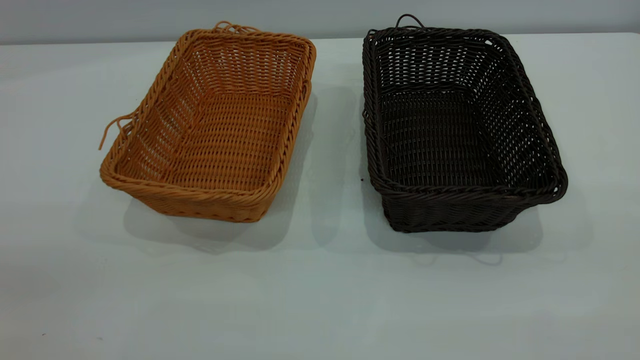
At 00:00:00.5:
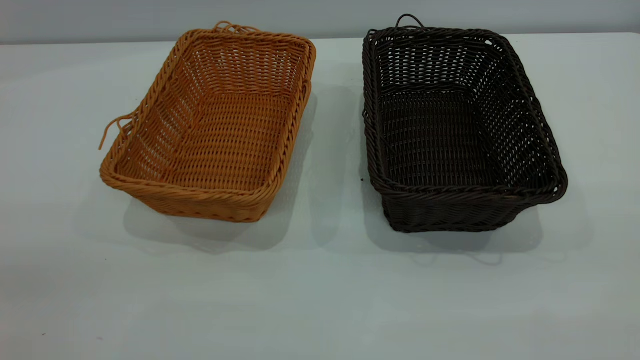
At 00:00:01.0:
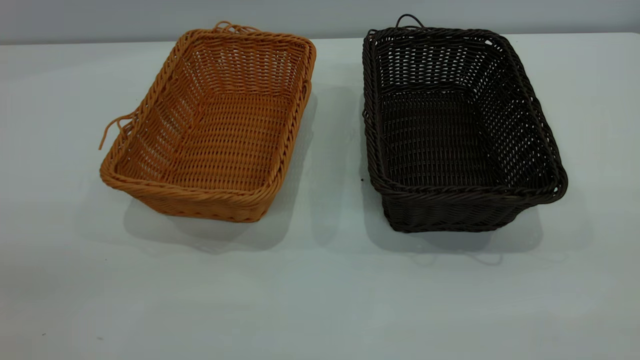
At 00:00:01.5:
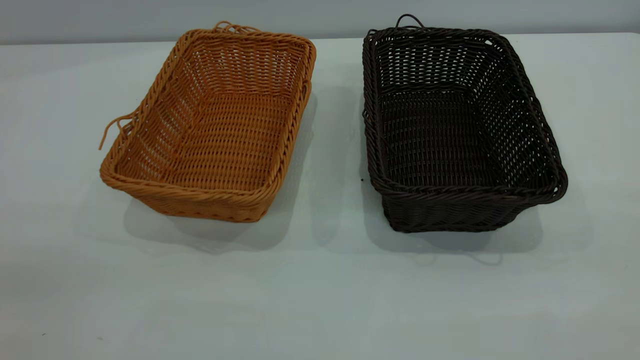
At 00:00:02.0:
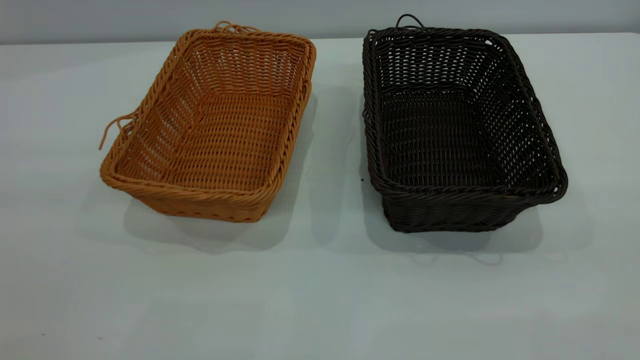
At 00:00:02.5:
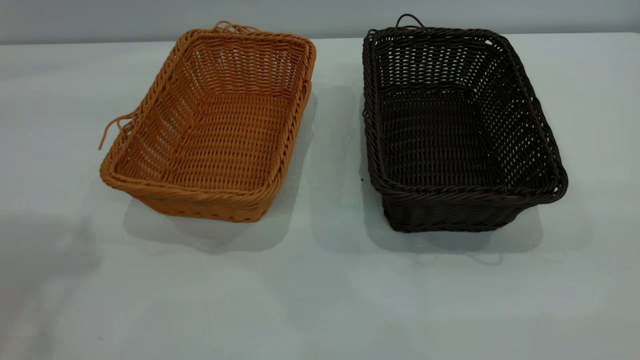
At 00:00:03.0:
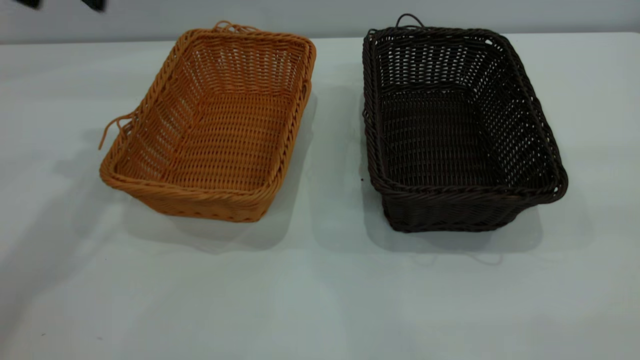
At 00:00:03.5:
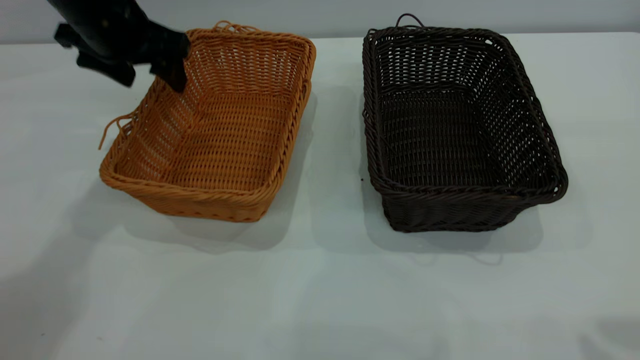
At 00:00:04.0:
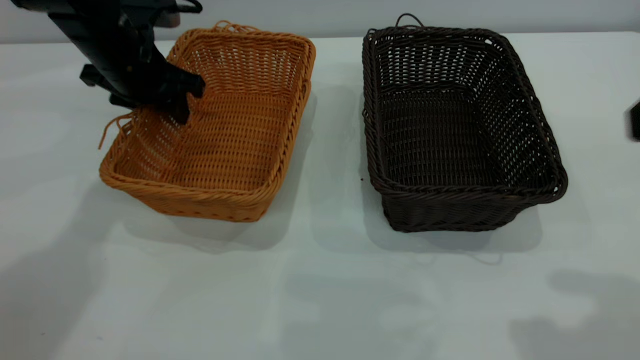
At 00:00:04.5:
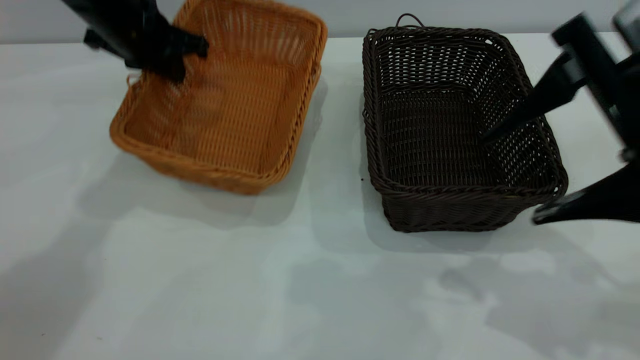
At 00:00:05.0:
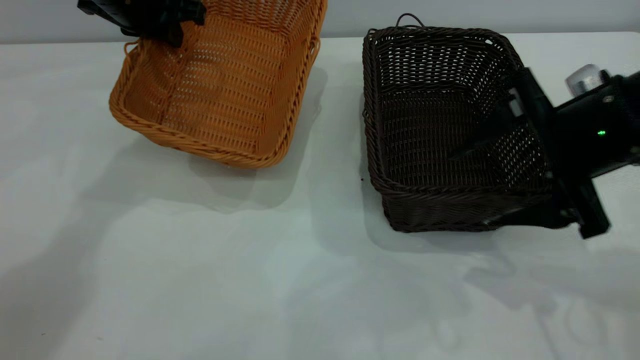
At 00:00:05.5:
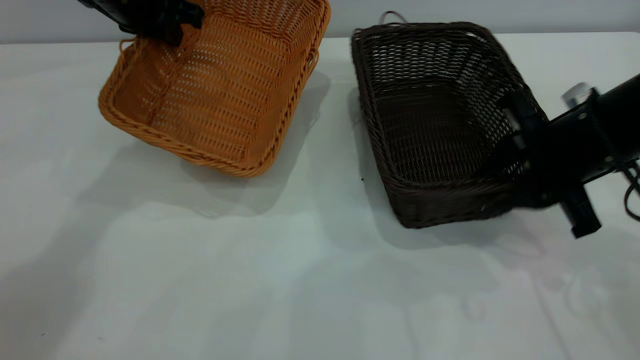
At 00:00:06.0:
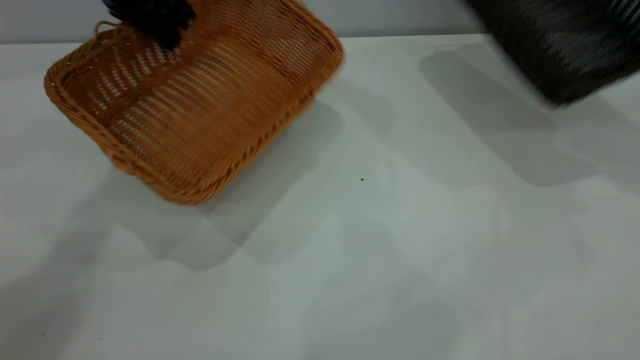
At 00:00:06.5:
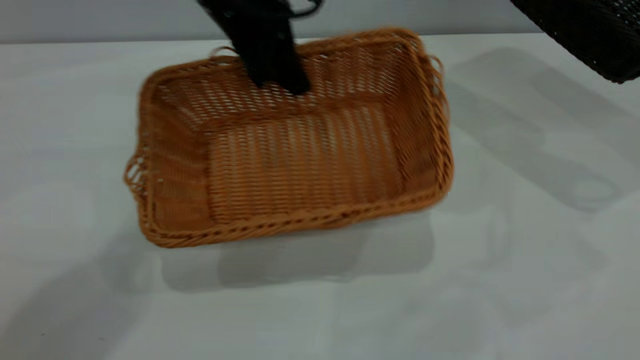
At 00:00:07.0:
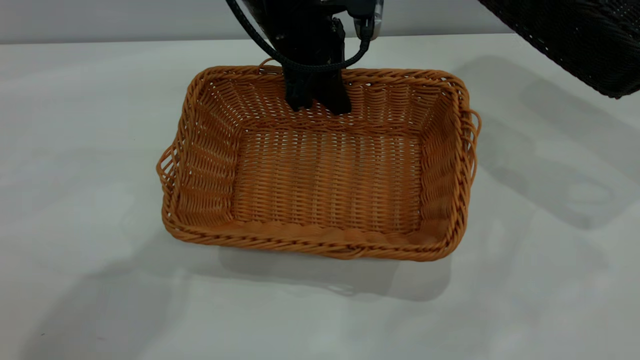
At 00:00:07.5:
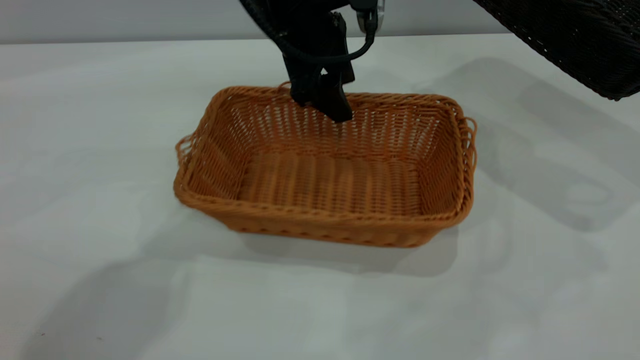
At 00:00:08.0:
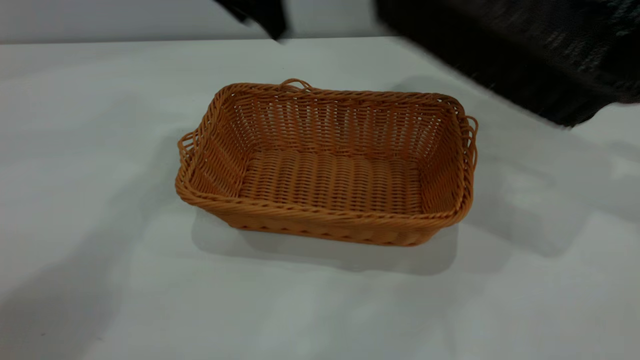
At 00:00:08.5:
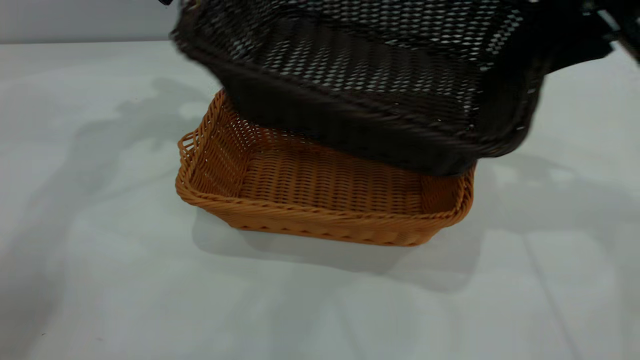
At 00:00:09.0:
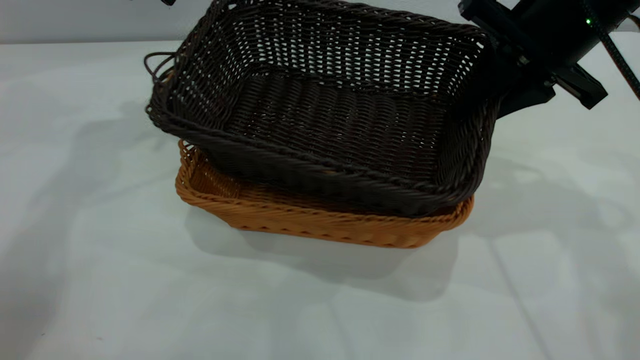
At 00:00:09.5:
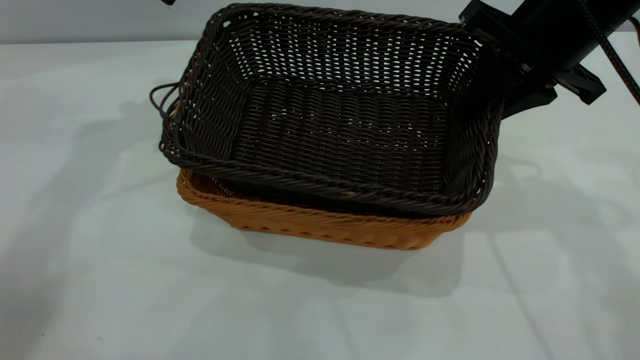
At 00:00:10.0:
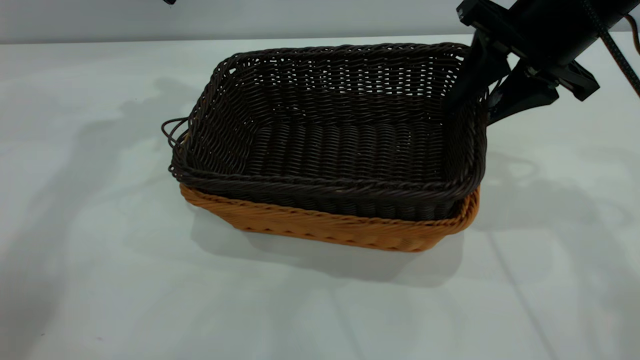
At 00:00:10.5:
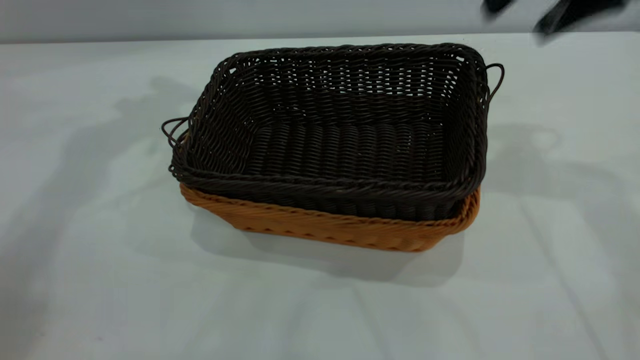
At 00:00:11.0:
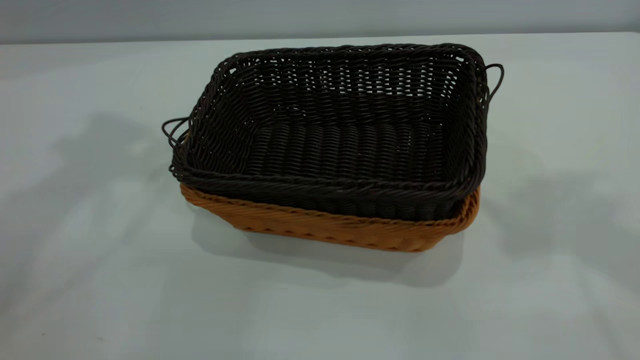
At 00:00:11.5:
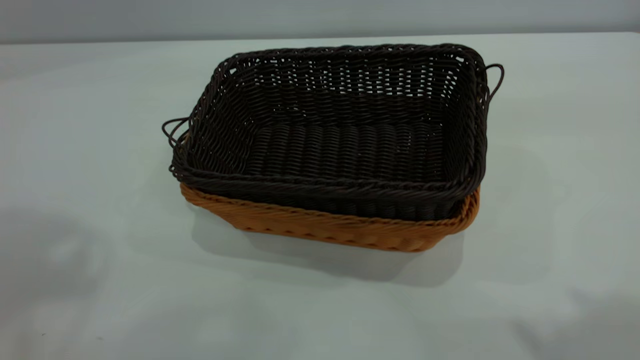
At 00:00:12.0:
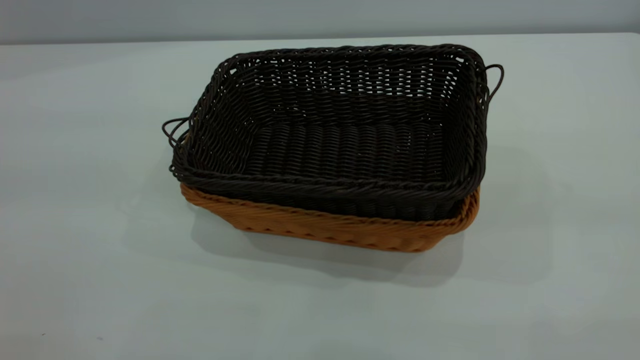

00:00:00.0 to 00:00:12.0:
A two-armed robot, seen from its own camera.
Task of the whole recording: the left gripper grasp the brown basket and place it in the center of the table, the right gripper grasp the black basket and place it inside the brown one.
Step, 00:00:00.0 to 00:00:05.5: Pick up the light basket with the right gripper.
Step, 00:00:06.0 to 00:00:07.5: Place the light-colored basket in the center.
Step, 00:00:08.0 to 00:00:10.0: Place the dark basket on top of the light basket.
00:00:02.0 to 00:00:04.0: The left gripper is displaced forward and downward by about 50 cm, and closes up.
00:00:04.0 to 00:00:06.0: The left gripper goes approximately 10 cm upward, while the right gripper travels forward, to the right and downward by roughly 25 cm, and closes its fingers.
00:00:06.0 to 00:00:08.0: The right gripper shifts approximately 5 cm upward. The left gripper moves about 15 cm to the right and comes back, and opens its fingers.
00:00:08.0 to 00:00:10.0: The right gripper shifts roughly 15 cm to the left, and opens, while the left gripper goes approximately 10 cm to the left.
00:00:10.0 to 00:00:12.0: The left gripper shifts approximately 40 cm backward, while the right gripper goes roughly 35 cm backward and upward, and opens its fingers.

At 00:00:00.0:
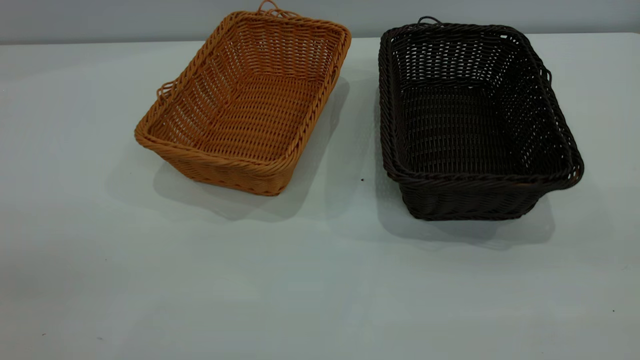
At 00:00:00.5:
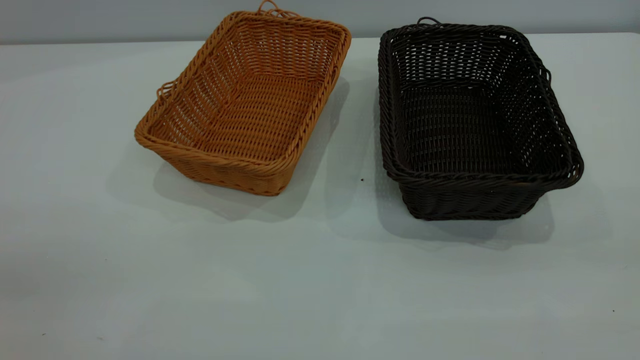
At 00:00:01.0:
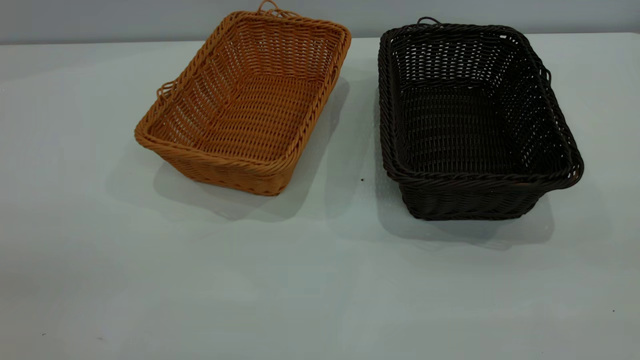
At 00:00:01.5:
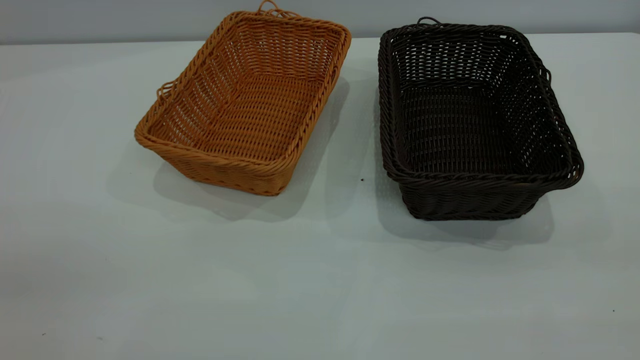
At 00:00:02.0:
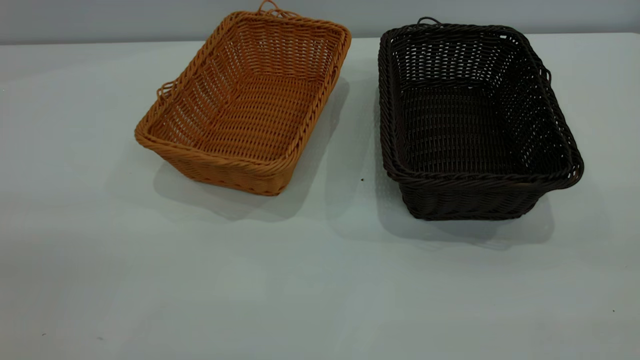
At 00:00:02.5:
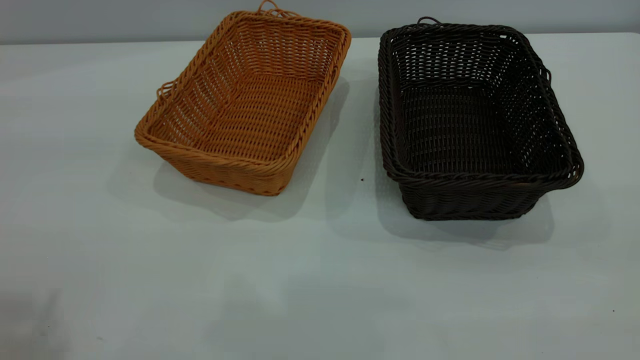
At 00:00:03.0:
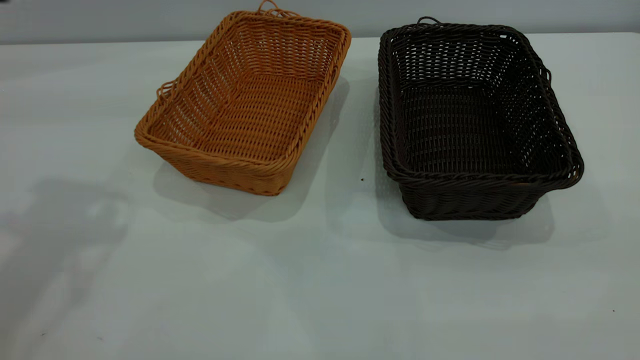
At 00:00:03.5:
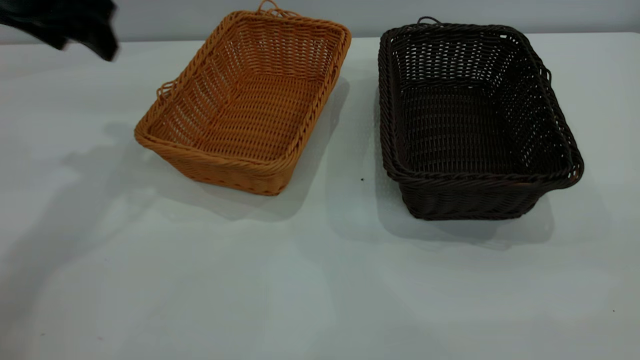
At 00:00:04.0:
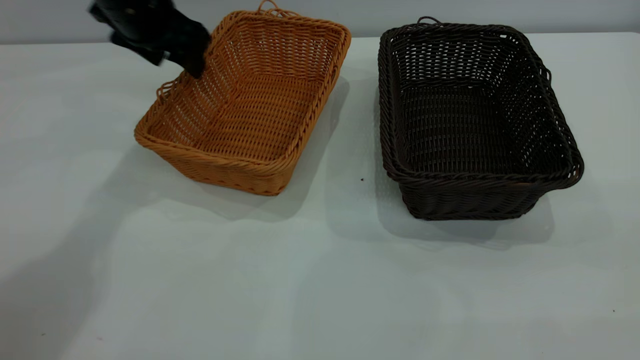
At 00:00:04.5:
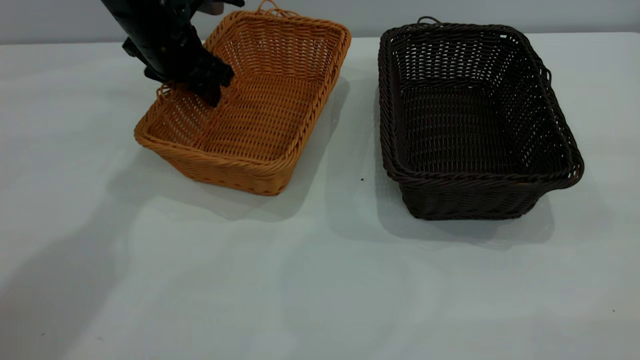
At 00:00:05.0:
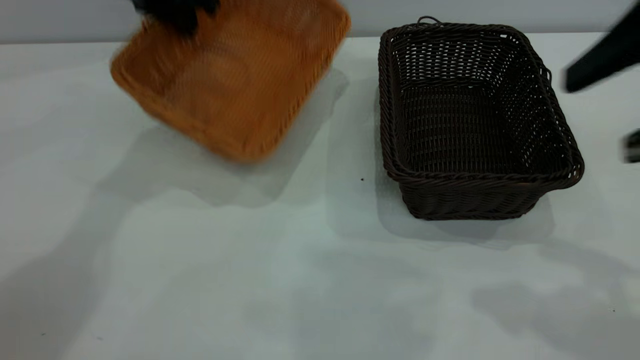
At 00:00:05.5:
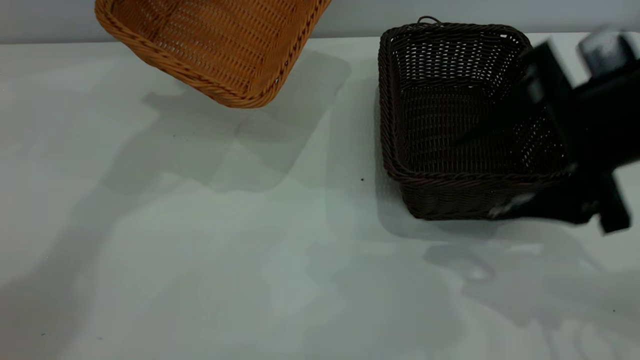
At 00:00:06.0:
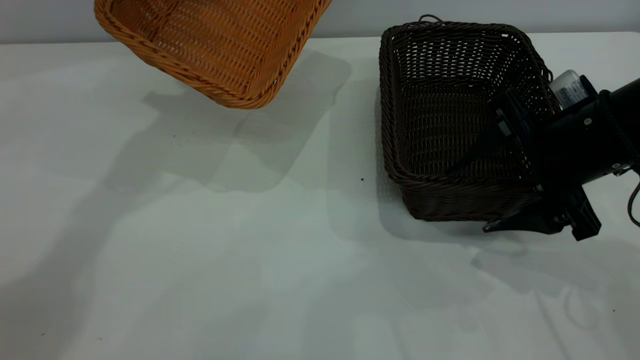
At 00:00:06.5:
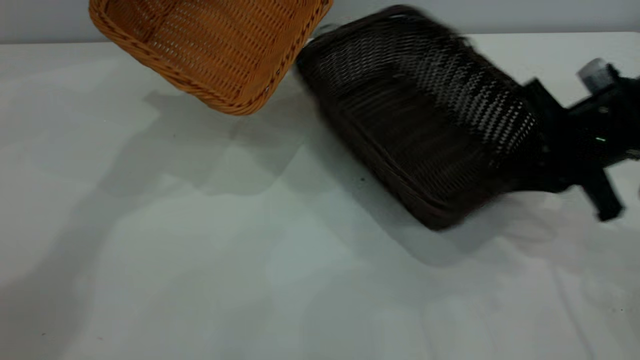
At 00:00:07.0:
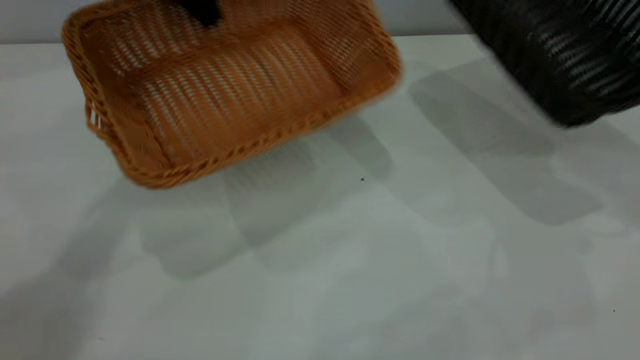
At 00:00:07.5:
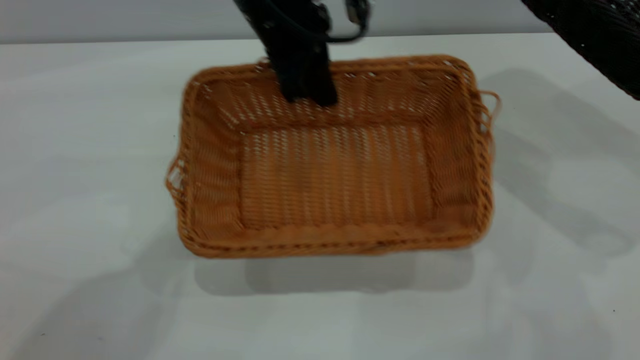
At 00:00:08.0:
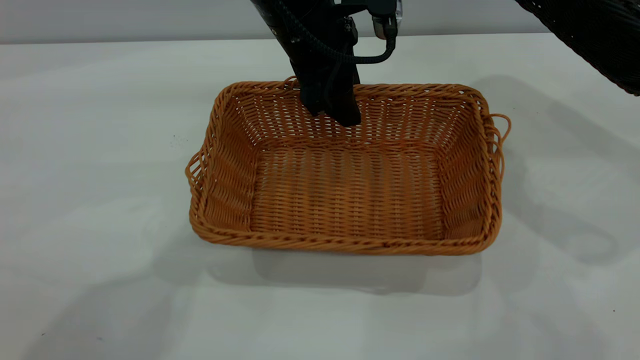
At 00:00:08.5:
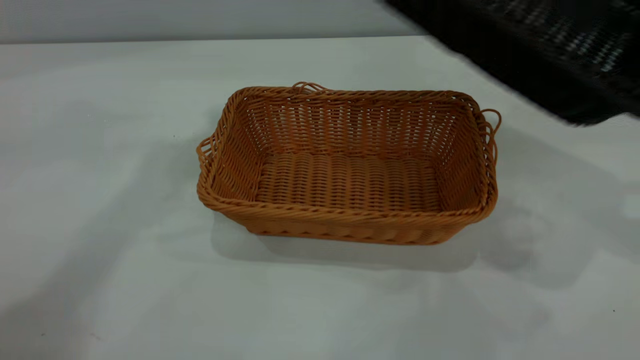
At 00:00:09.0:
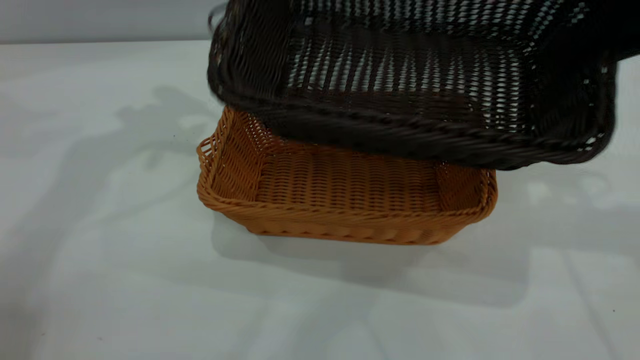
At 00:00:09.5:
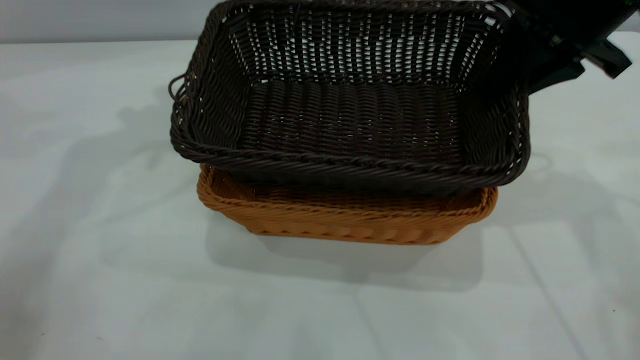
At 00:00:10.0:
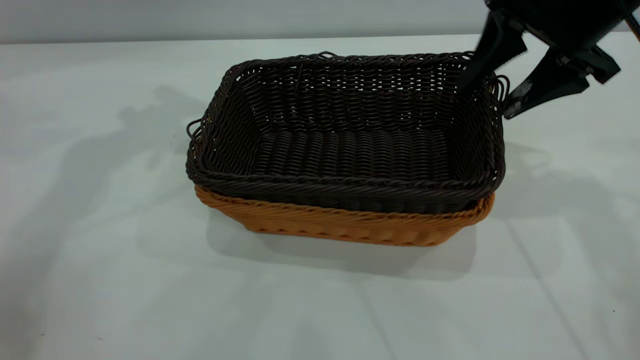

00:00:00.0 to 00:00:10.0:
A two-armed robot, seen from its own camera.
Task of the whole recording: the left gripper grasp the brown basket and place it in the center of the table, the right gripper grasp the black basket and place it inside the brown one.
Step, 00:00:00.0 to 00:00:06.5: Pick up the light basket with the right gripper.
Step, 00:00:07.0 to 00:00:08.0: Place the light-colored basket in the center.
00:00:02.0 to 00:00:04.0: The left gripper goes approximately 50 cm forward and downward.
00:00:04.0 to 00:00:06.0: The left gripper is displaced upward by about 10 cm, and closes its fingers. The right gripper shifts some 35 cm forward and downward.
00:00:06.0 to 00:00:08.0: The left gripper travels to the right, downward and backward by approximately 20 cm, and opens; the right gripper goes approximately 25 cm to the right and upward, and closes up.
00:00:08.0 to 00:00:10.0: The left gripper travels to the left and upward by about 25 cm. Meanwhile the right gripper travels to the left and forward by roughly 20 cm, and opens its fingers.
